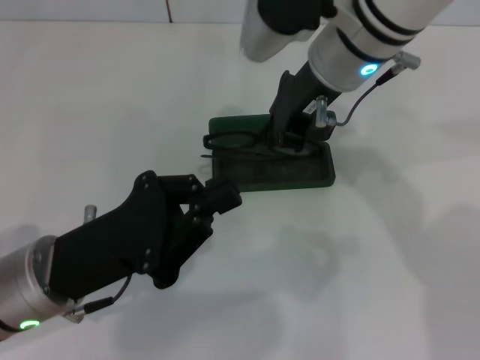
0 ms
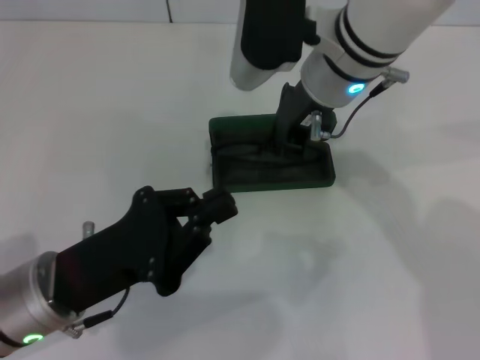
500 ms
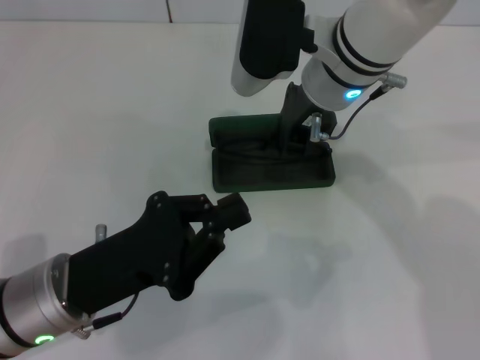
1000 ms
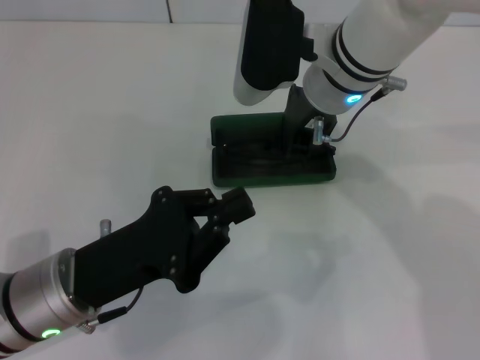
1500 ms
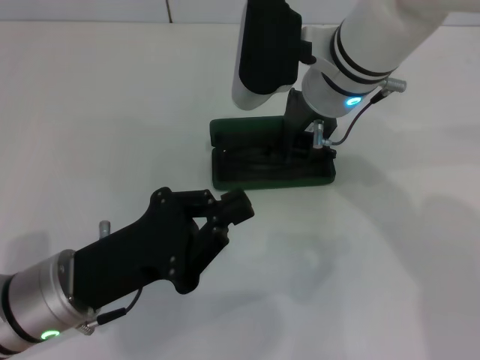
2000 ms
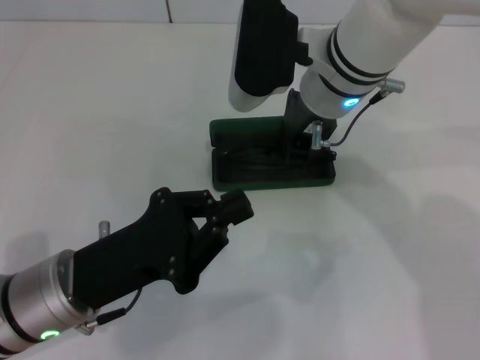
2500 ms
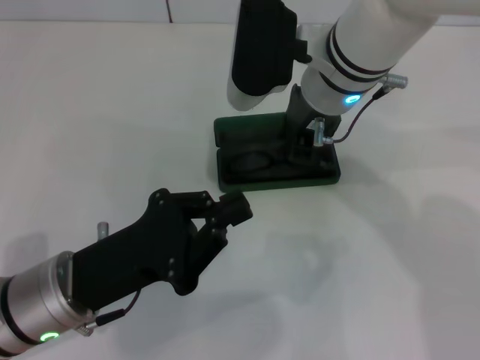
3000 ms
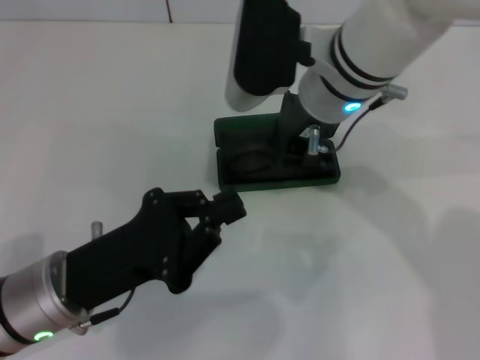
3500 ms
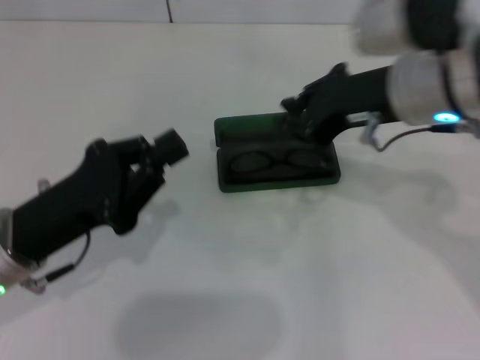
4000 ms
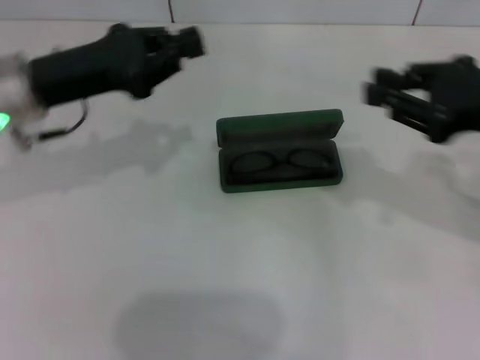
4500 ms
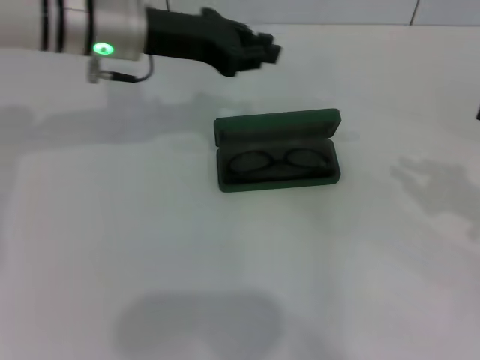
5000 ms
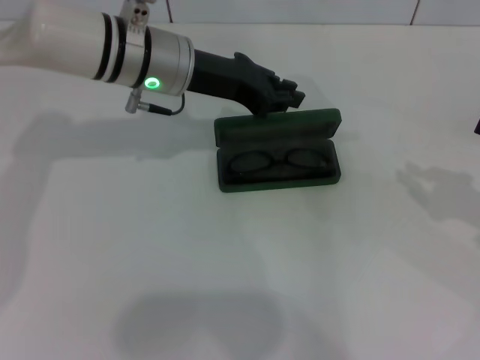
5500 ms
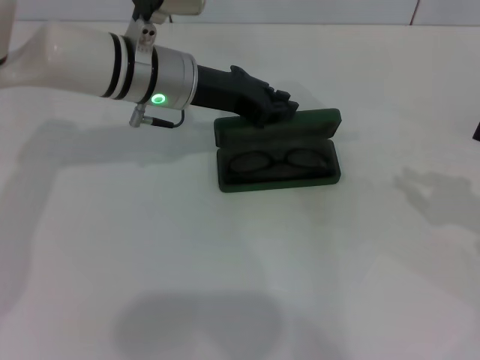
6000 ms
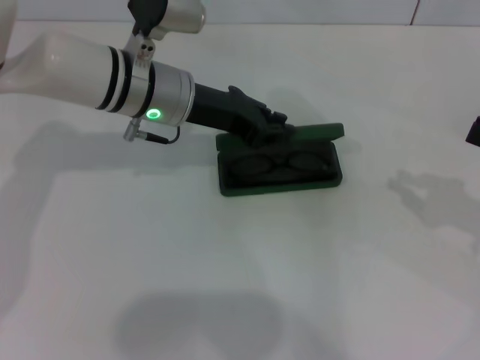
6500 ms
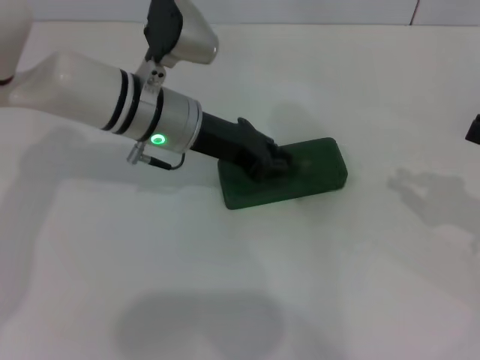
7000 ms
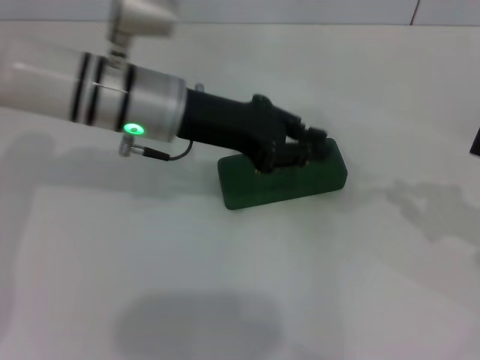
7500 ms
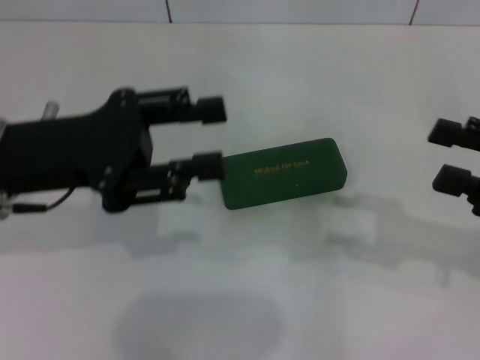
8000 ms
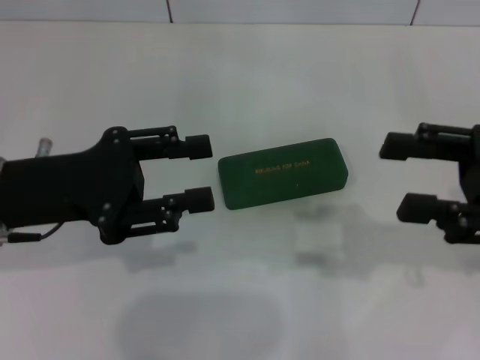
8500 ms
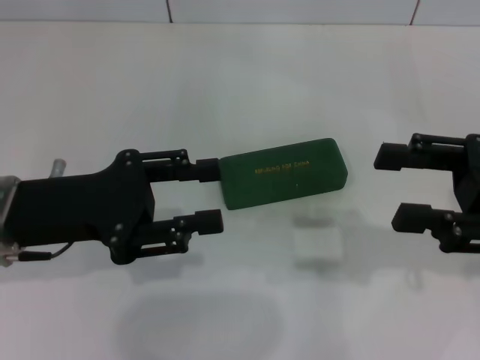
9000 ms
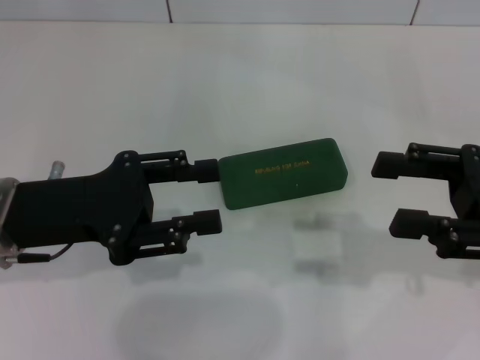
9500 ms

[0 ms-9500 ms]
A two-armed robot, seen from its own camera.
Step, 0 ms to 3500 ms: Put the glasses into the case with your right hand.
Step, 4000 ms to 7000 ms: Close the glasses case with your left hand.
0 ms to 2000 ms: The grippers move only a little.
2000 ms to 4000 ms: The right gripper travels to the right and backward by about 10 cm.
4000 ms to 5500 ms: The left gripper shifts about 25 cm forward and to the right. Meanwhile the right gripper moves to the right, about 25 cm.
5500 ms to 7500 ms: The left gripper shifts approximately 5 cm backward.
7500 ms to 9500 ms: The right gripper moves to the left, some 10 cm, and opens its fingers. Meanwhile the left gripper goes about 15 cm to the left and backward, and opens up.
